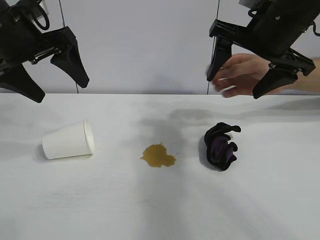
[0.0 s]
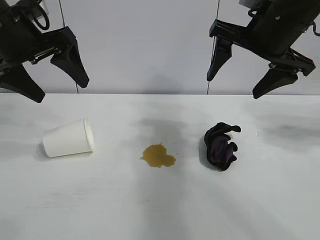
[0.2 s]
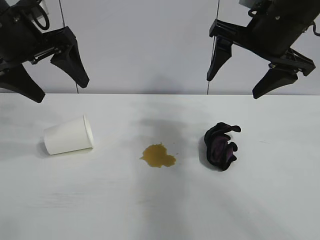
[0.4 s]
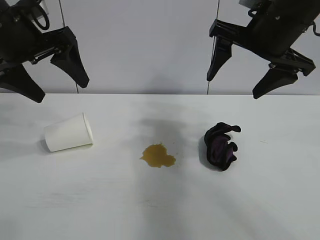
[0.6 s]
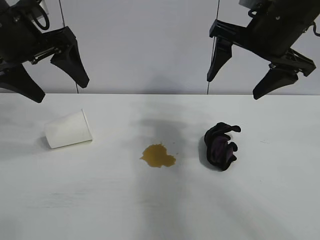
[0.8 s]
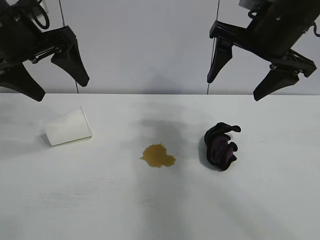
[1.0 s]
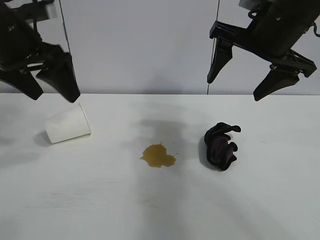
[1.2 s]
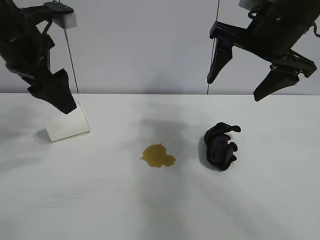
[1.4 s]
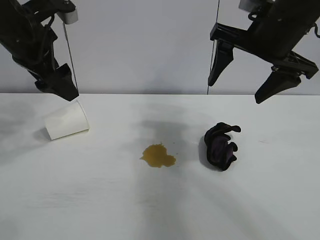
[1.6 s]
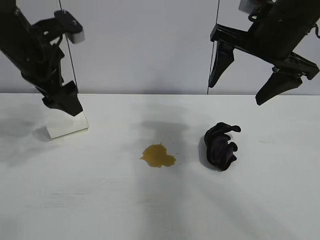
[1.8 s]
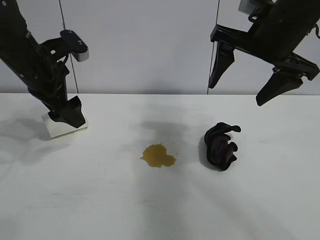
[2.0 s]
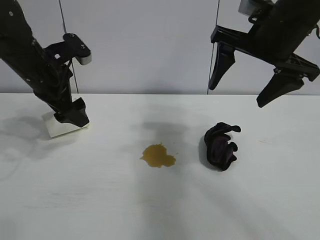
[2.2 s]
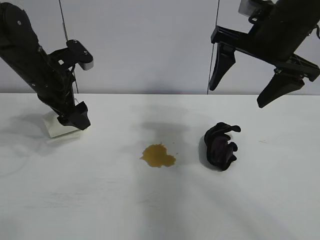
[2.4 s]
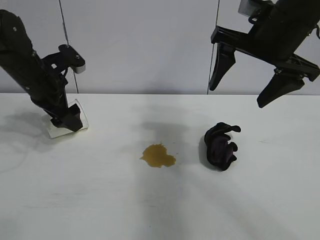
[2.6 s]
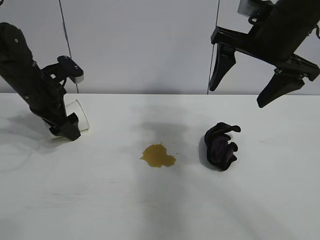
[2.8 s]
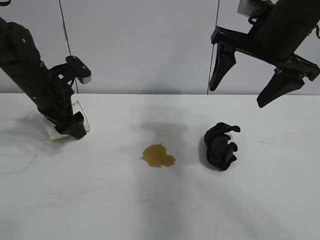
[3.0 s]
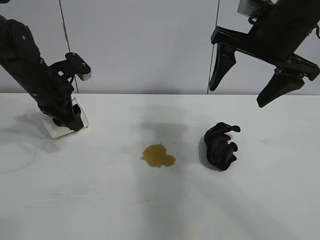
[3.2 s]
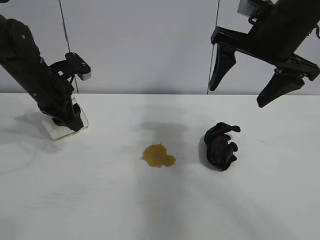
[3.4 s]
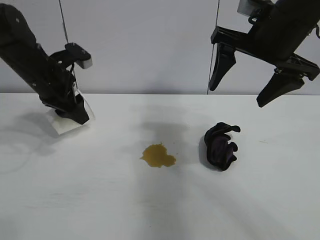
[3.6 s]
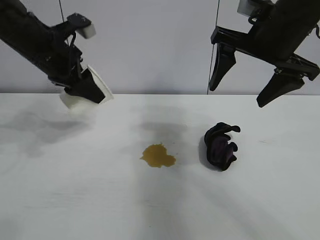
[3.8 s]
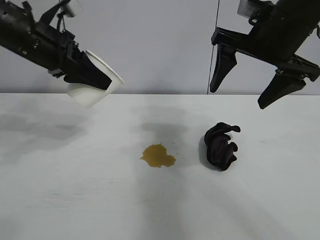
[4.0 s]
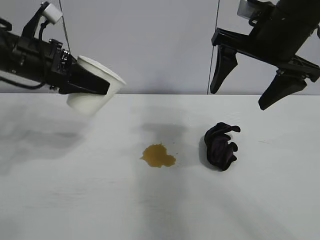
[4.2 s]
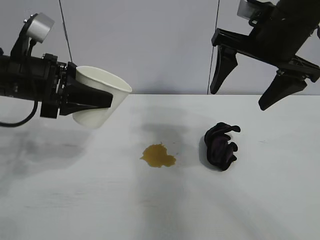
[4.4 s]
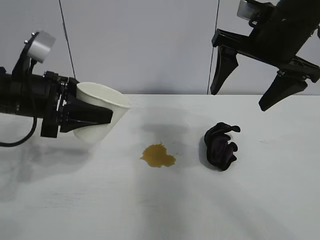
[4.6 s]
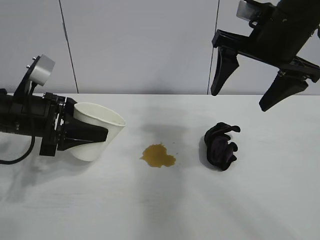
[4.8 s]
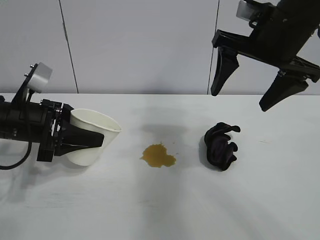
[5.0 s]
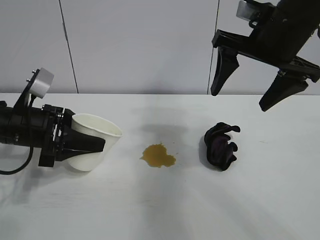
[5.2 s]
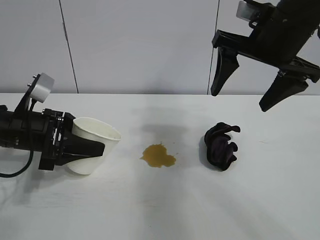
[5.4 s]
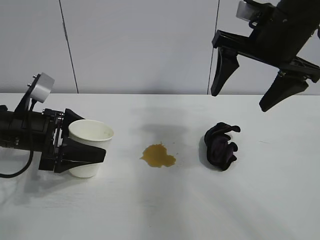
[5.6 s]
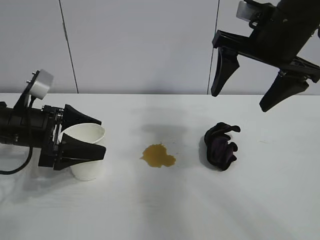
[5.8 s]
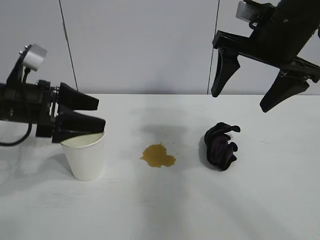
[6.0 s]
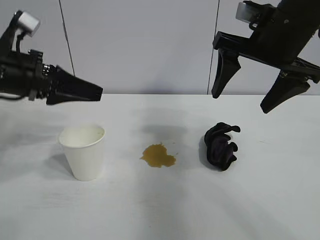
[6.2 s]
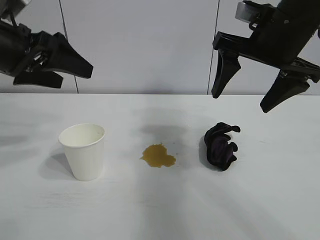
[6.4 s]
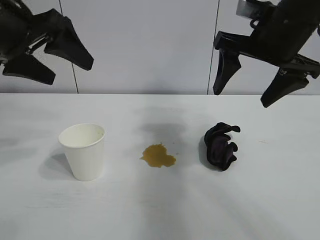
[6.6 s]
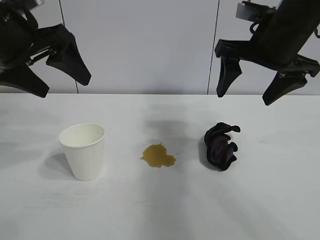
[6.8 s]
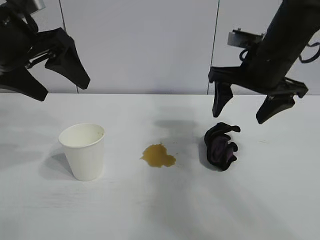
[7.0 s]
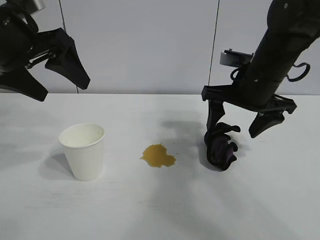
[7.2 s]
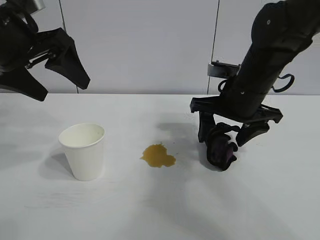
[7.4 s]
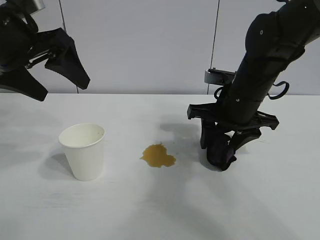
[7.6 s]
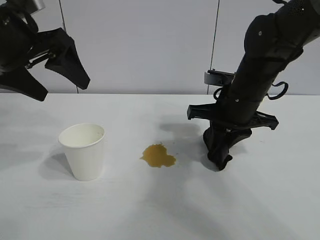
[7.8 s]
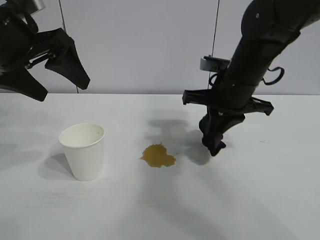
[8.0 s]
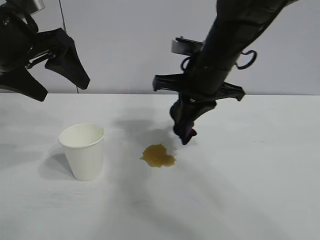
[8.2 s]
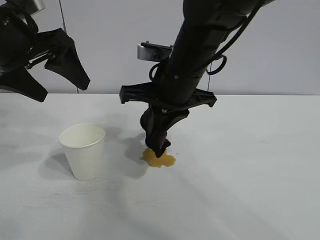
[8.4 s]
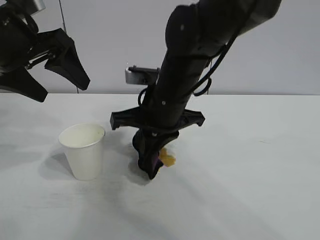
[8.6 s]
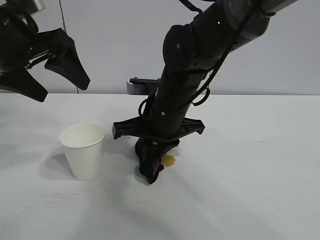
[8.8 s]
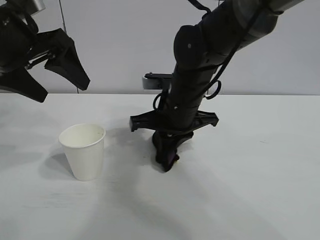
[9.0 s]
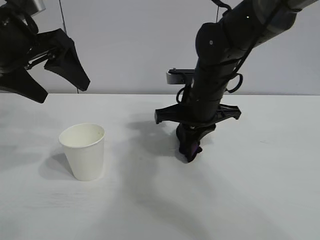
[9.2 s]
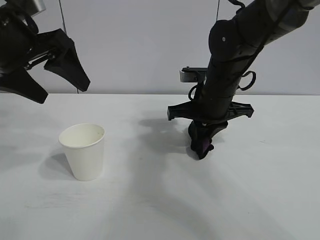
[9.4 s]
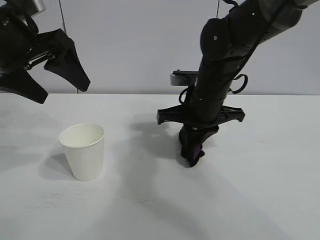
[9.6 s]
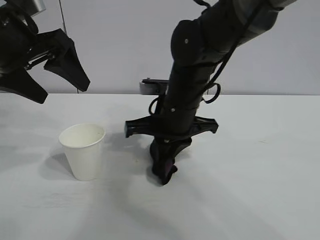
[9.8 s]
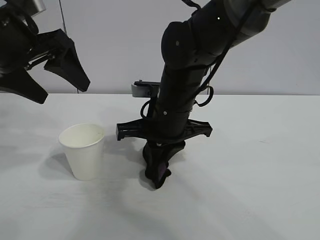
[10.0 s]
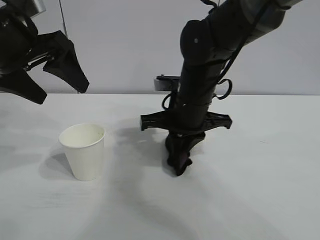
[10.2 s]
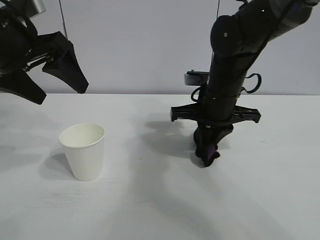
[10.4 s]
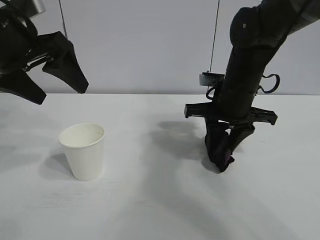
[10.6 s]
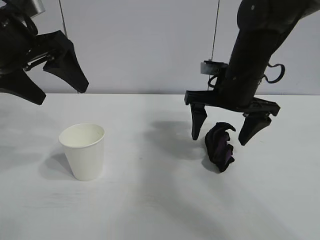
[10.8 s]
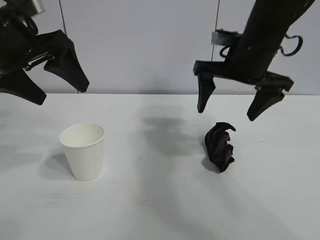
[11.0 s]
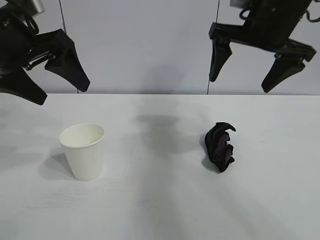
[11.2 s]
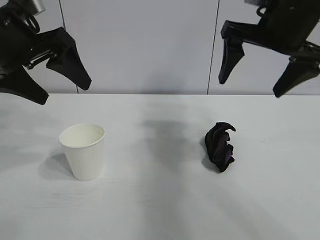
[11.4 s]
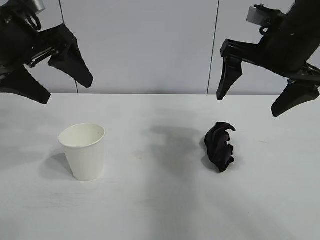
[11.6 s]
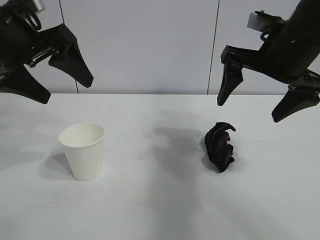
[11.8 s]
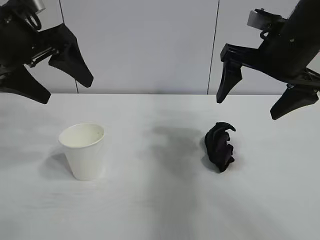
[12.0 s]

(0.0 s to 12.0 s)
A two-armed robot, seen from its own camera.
Task of the whole recording: the left gripper pick up the fallen cup and place it upright, the right gripper grasp the black rag and wipe the stain on the table, the right gripper put the black rag back in its original position.
Step, 1.0 s - 3.2 s: Grasp the paper cup with left gripper.
Step, 3.6 s - 5.6 s: Stand the paper cup upright with left gripper.
Step, 6.0 s - 7.6 s: Grasp the rag with right gripper.
Step, 8.0 s - 10.4 s: Wipe the stains off the table with the rag with right gripper.
